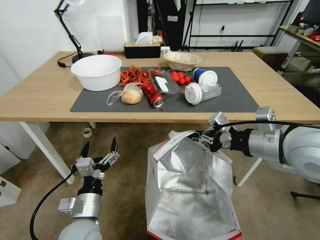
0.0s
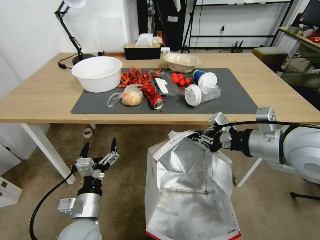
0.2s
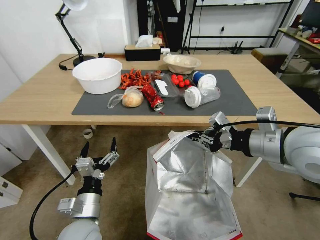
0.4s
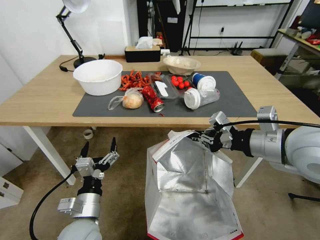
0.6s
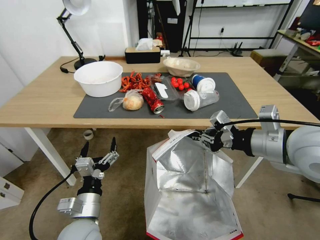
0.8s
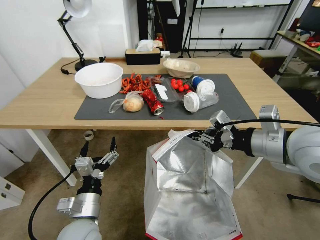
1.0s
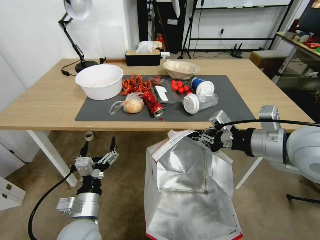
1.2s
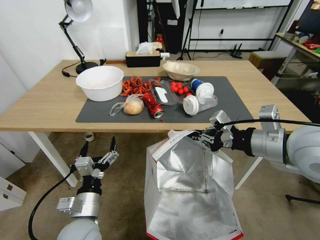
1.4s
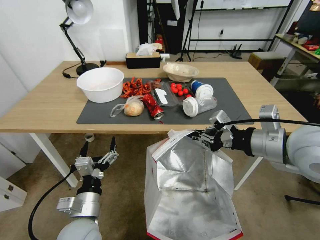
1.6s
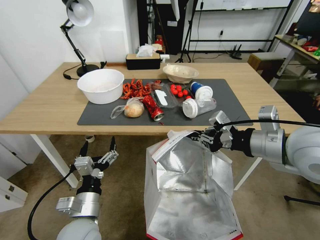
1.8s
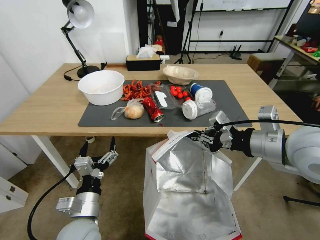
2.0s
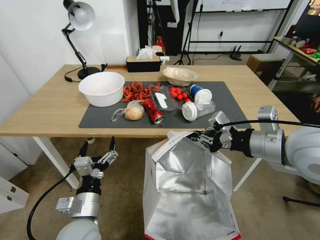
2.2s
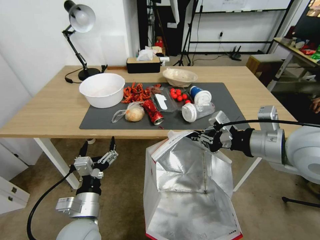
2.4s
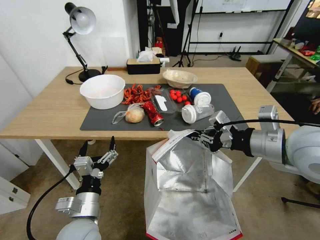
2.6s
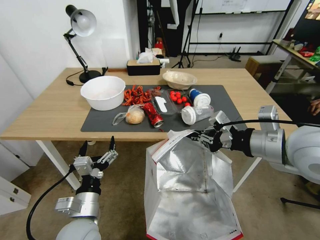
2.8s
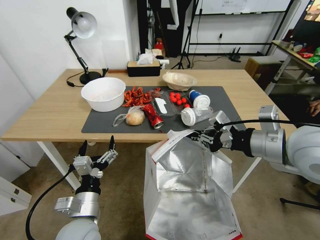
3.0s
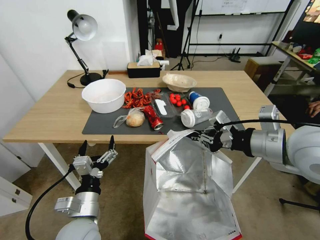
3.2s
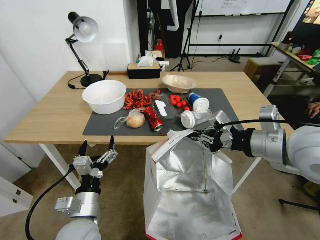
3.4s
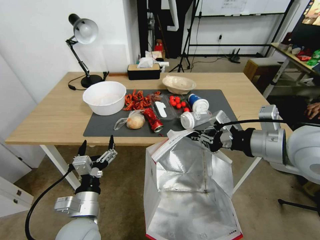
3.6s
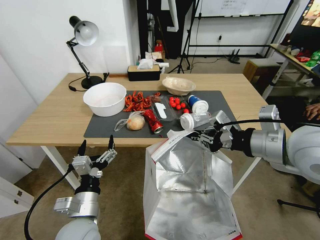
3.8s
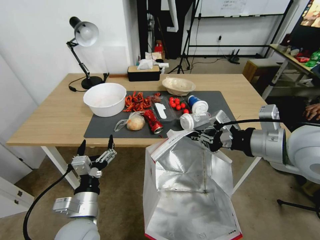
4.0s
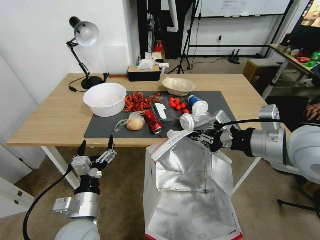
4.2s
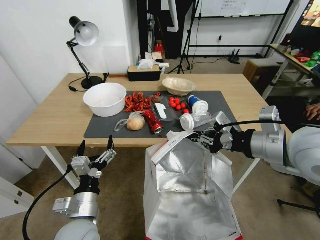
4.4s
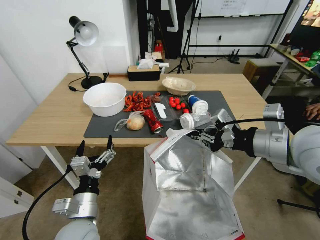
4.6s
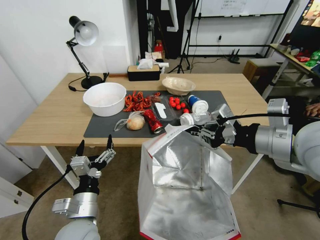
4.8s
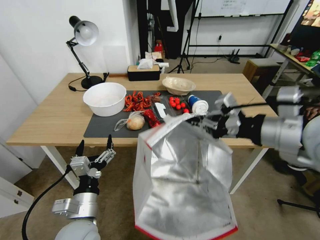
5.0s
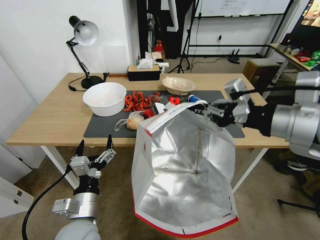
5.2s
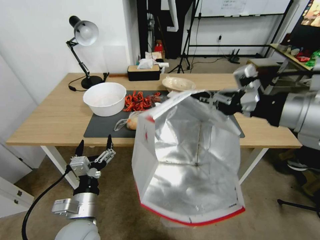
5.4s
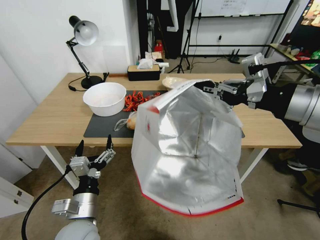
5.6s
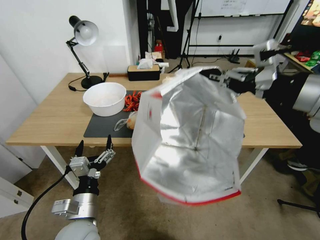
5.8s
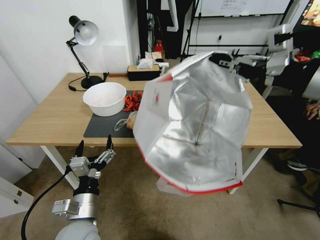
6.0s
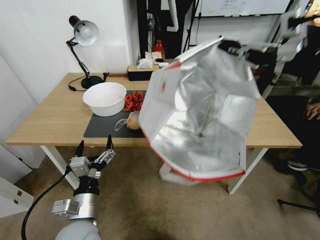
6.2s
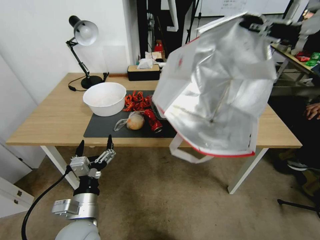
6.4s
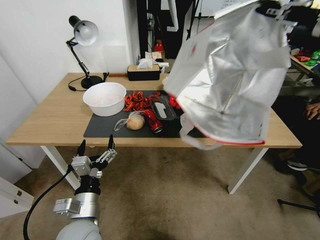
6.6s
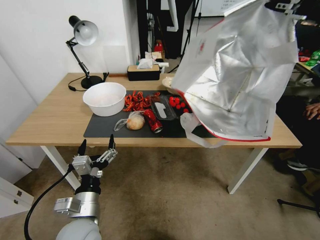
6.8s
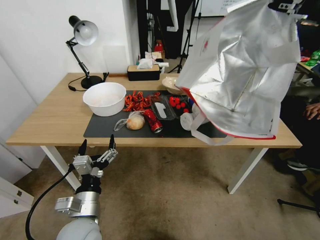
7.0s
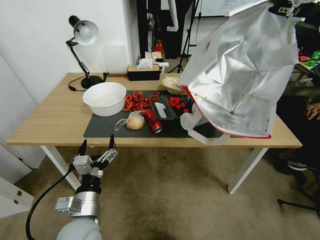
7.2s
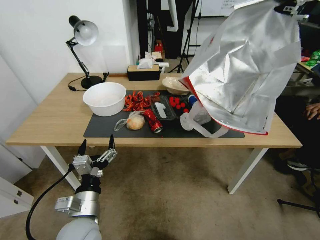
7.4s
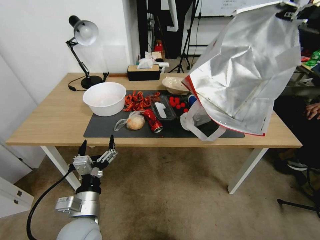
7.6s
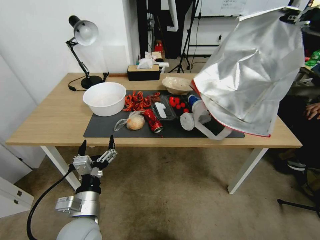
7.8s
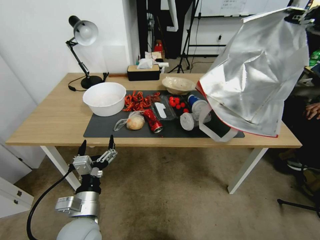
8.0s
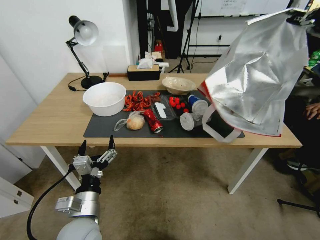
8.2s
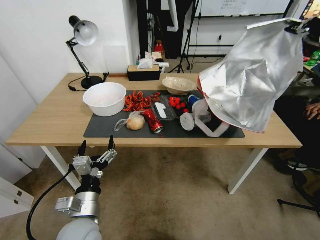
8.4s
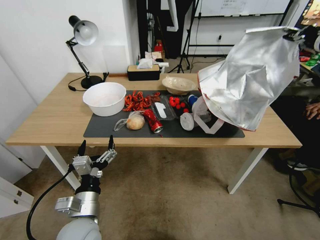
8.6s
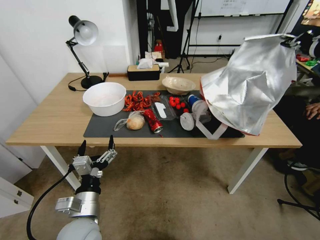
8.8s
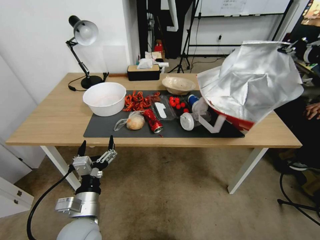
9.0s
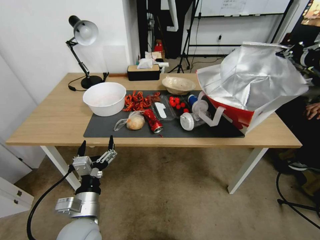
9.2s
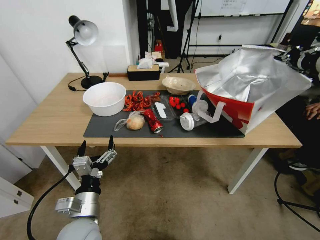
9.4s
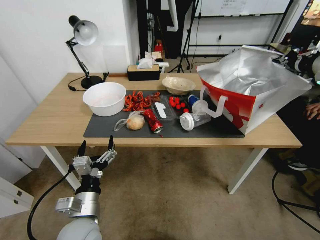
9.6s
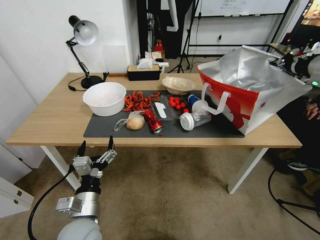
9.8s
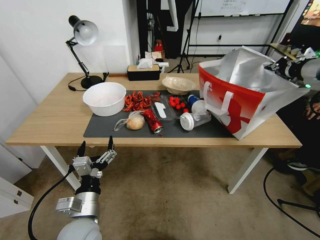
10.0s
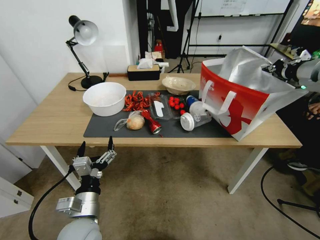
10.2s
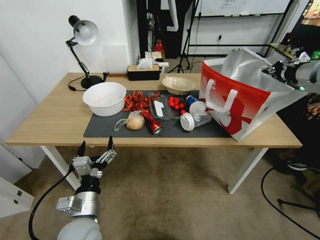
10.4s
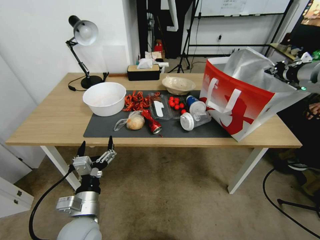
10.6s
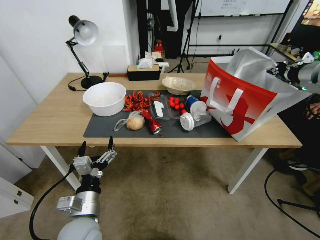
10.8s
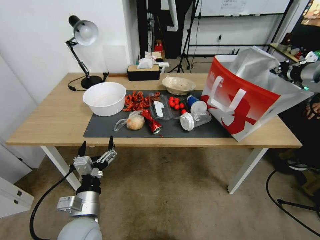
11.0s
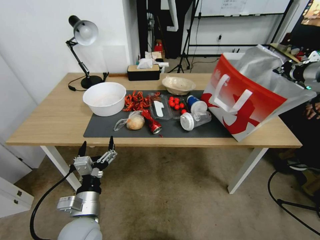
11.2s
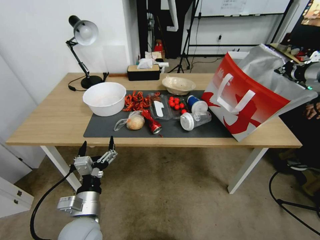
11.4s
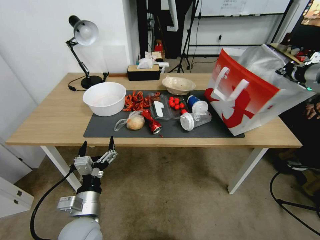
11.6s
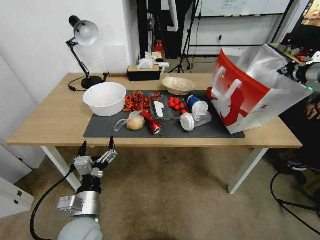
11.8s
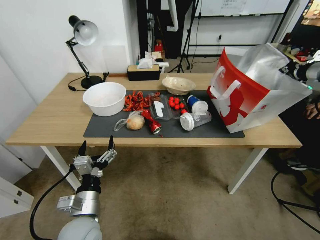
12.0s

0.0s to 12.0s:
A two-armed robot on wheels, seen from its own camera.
Task of the whole recording: Pick up the food delivery bag from the floor and place it on the table.
4.4s to 6.0s: The right gripper heads upward, covering approximately 10 cm.
6.0s to 7.6s: The right gripper heads to the right, forward and upward, covering approximately 10 cm.
7.6s to 9.0s: The right gripper heads forward and downward, covering approximately 10 cm.
9.0s to 10.4s: The right gripper travels downward and forward by approximately 10 cm.
10.4s to 12.0s: The grippers move only a little.

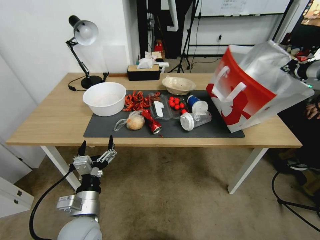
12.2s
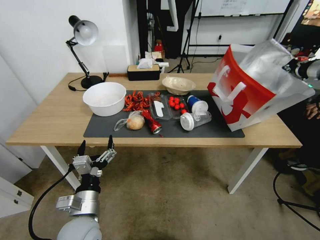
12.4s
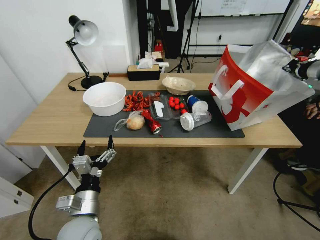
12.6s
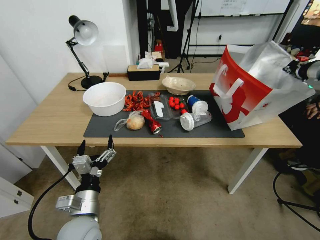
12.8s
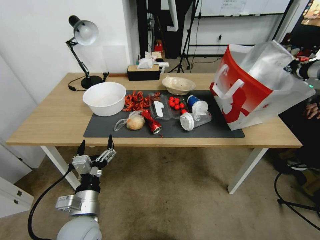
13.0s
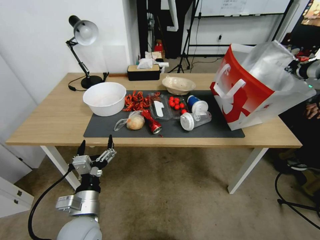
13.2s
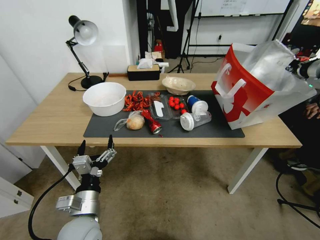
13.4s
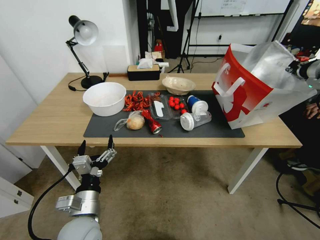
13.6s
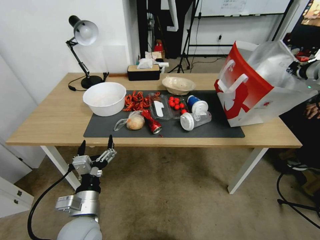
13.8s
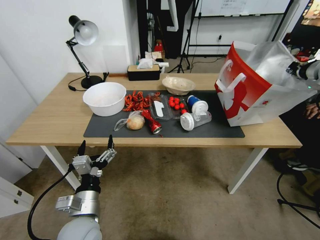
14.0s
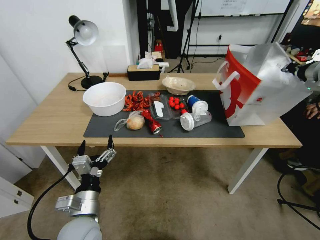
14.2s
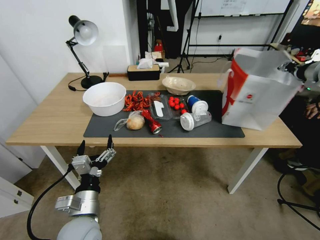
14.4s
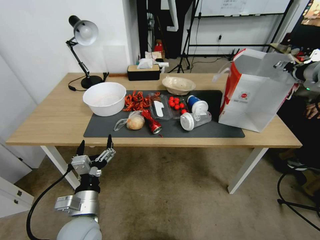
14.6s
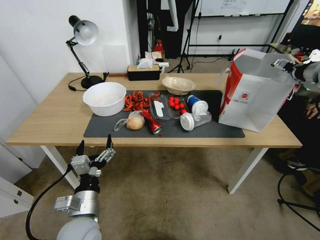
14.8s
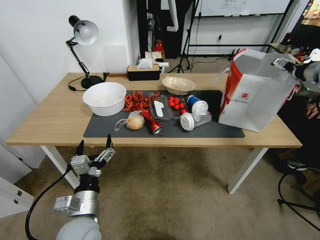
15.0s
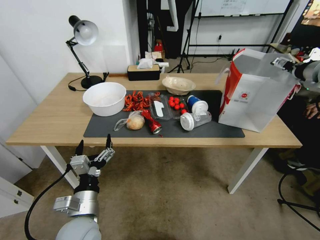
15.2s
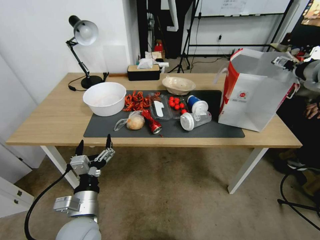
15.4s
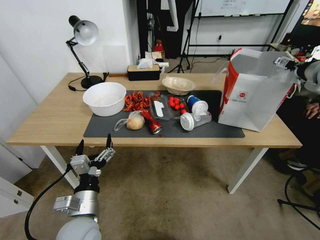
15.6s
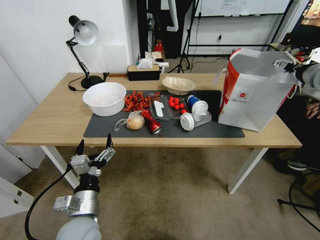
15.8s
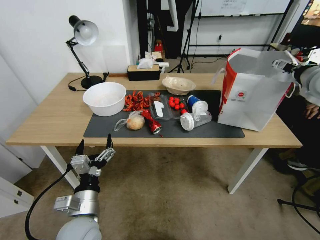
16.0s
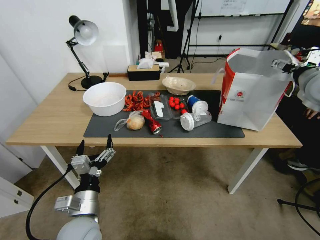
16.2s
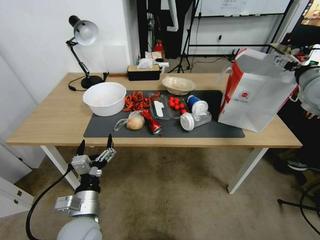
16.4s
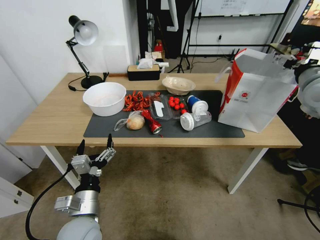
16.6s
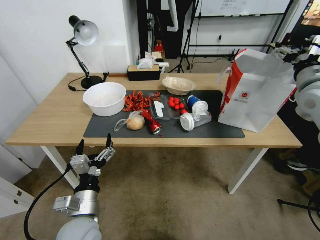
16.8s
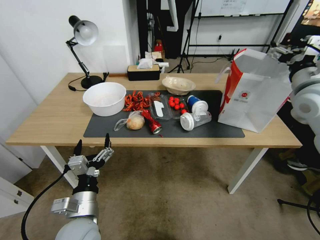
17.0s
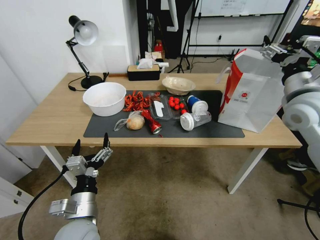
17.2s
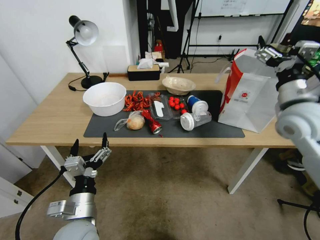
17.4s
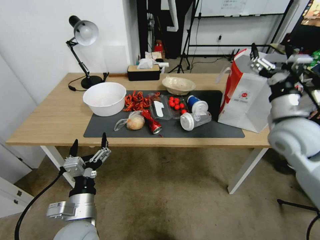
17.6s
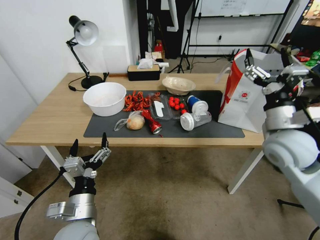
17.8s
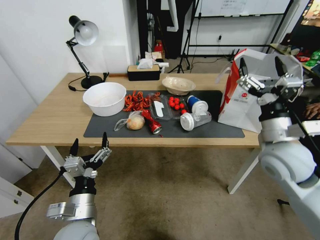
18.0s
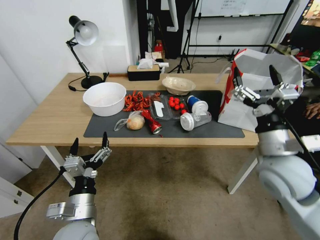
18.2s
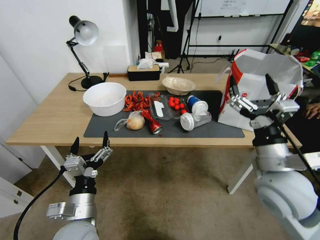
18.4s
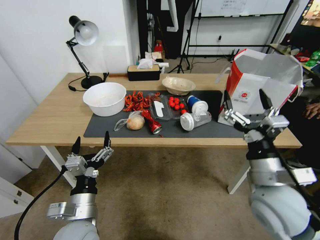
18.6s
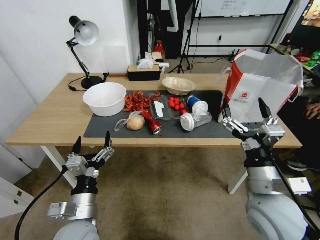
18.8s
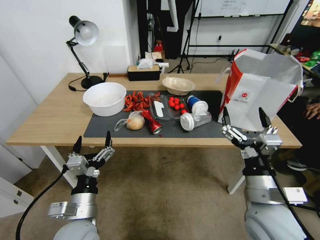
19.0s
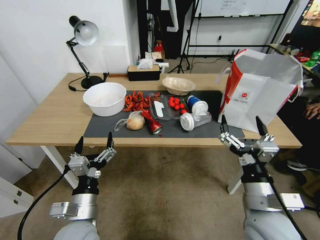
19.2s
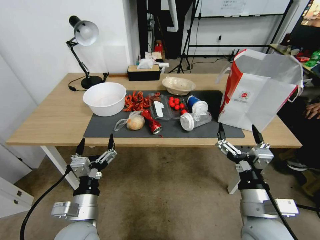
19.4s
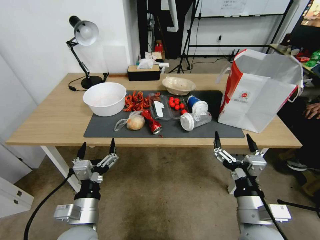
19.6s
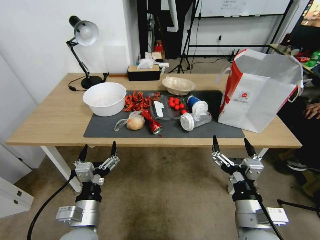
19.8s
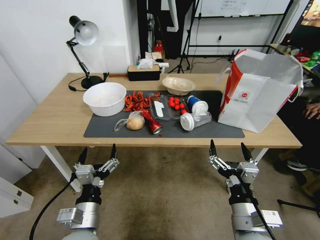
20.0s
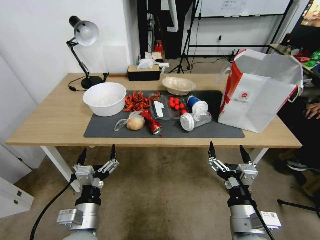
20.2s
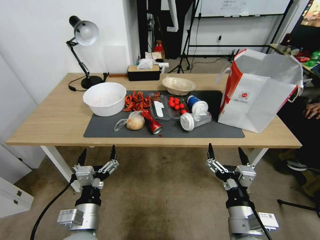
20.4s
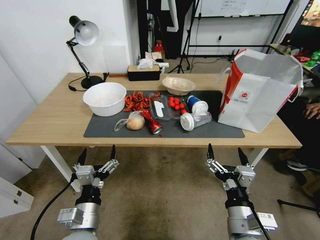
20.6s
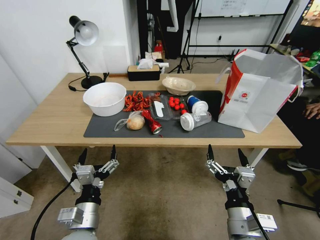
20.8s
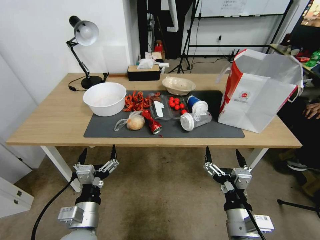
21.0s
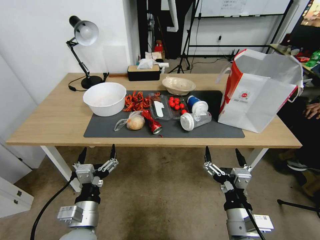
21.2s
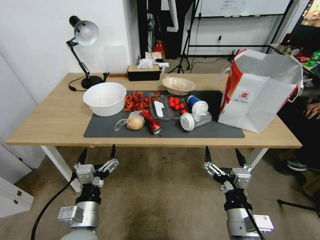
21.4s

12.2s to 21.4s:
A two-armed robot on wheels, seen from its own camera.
Task of the whole recording: Pick up the food delivery bag from the floor and place it on the table.
12.2s to 13.8s: The grippers move only a little.
13.8s to 15.2s: The right gripper opens its fingers.
15.2s to 16.8s: The right gripper shifts about 5 cm to the left.
16.8s to 18.4s: The right gripper moves backward, to the left and downward, some 25 cm.
18.4s to 19.8s: The right gripper goes approximately 15 cm backward, downward and to the left.
19.8s to 21.4s: The grippers make only small movements.

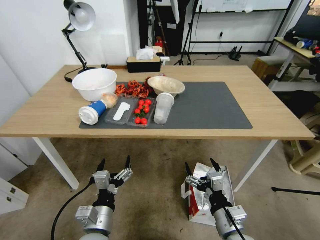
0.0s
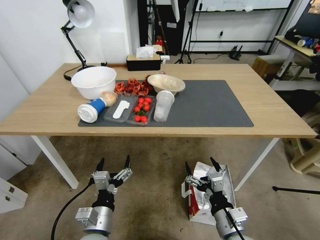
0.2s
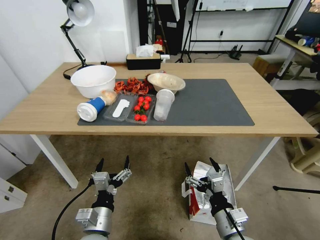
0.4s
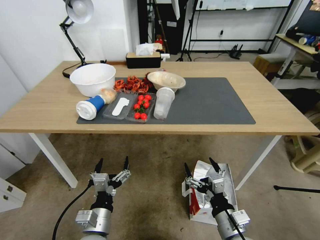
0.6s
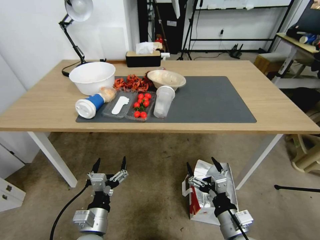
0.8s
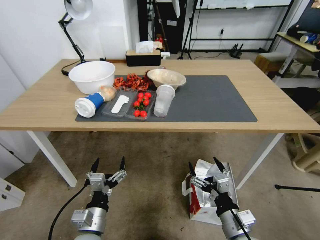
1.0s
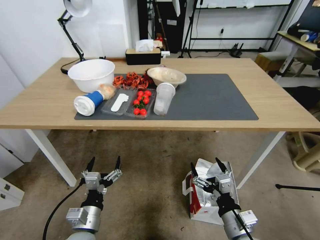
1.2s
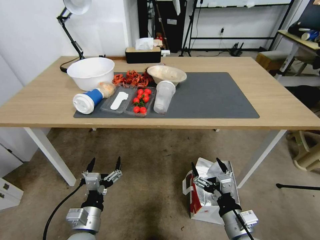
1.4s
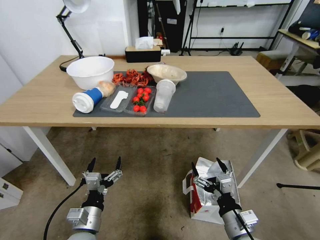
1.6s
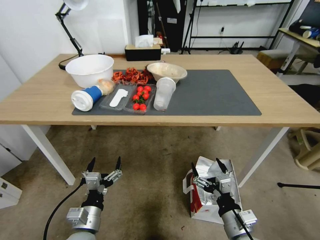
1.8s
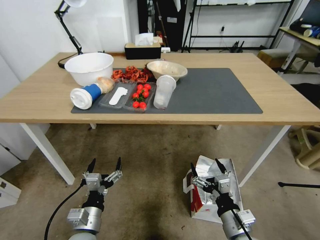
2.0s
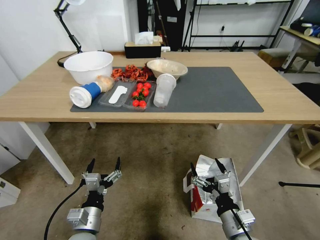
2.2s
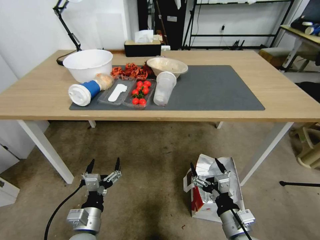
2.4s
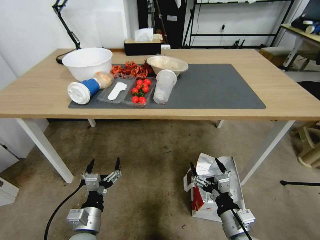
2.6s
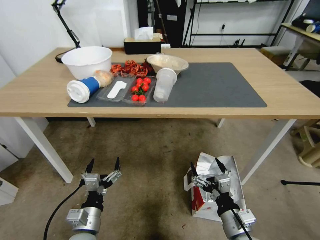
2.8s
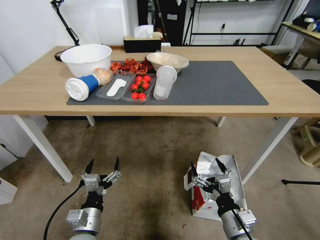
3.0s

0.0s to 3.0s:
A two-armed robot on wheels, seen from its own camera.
Task of the whole recording: Pick up the food delivery bag from the floor and place it on the table.
0.0s to 1.6s: The left gripper shifts by roughly 5 cm.
